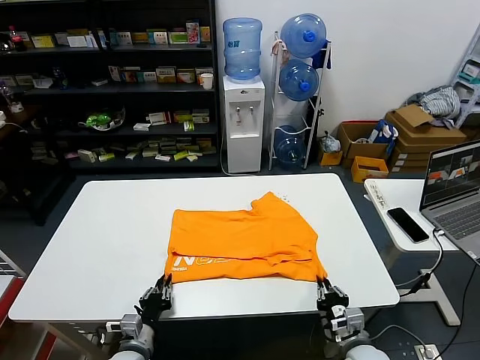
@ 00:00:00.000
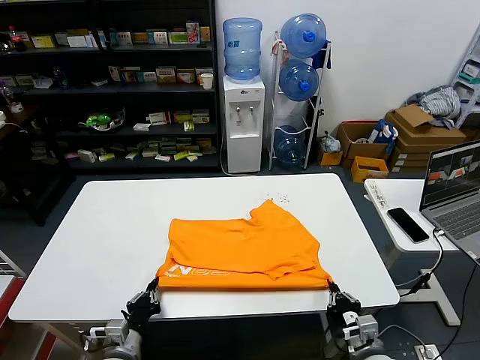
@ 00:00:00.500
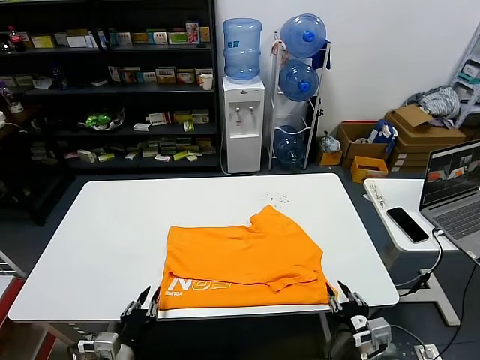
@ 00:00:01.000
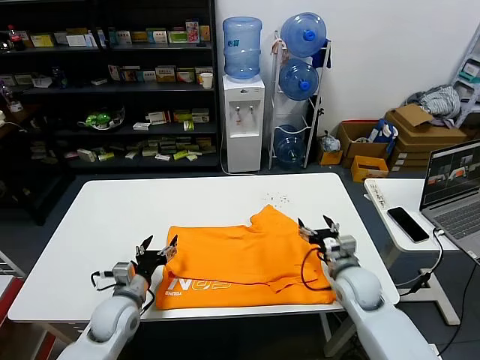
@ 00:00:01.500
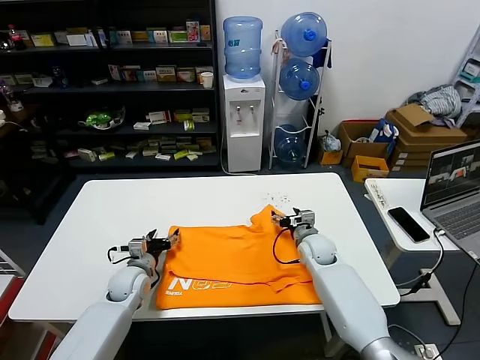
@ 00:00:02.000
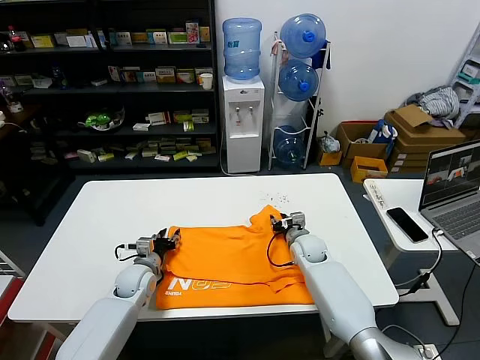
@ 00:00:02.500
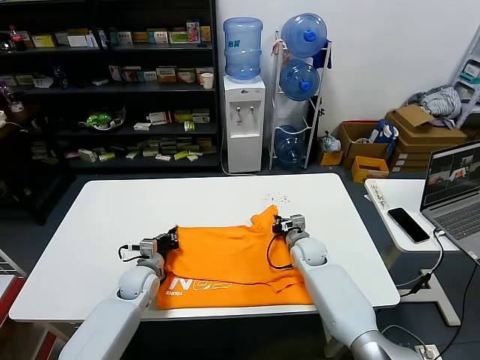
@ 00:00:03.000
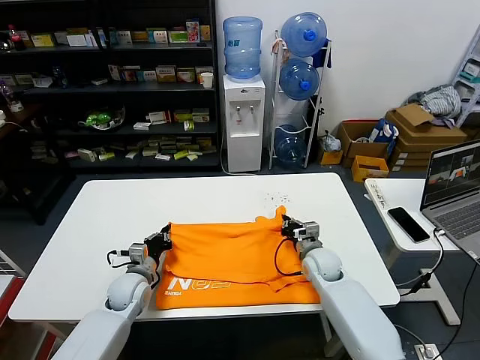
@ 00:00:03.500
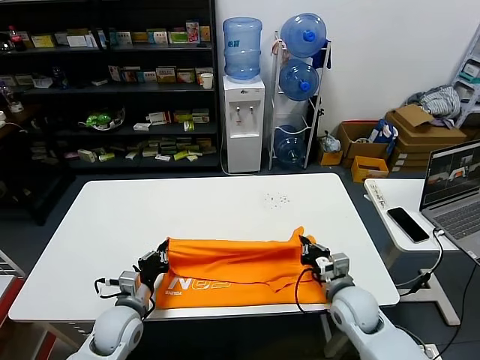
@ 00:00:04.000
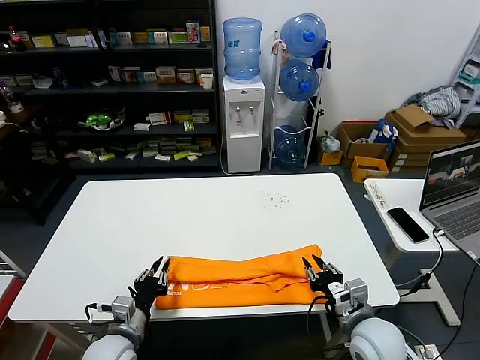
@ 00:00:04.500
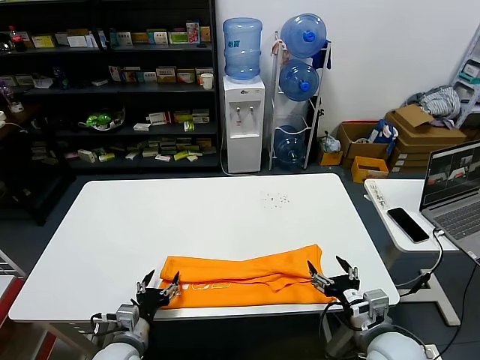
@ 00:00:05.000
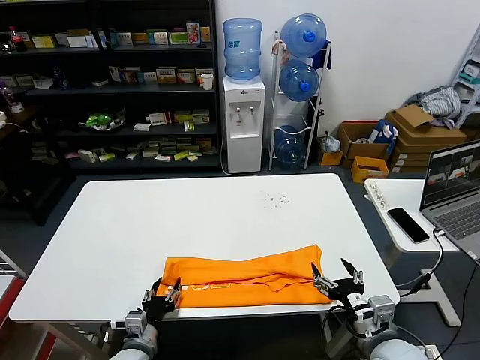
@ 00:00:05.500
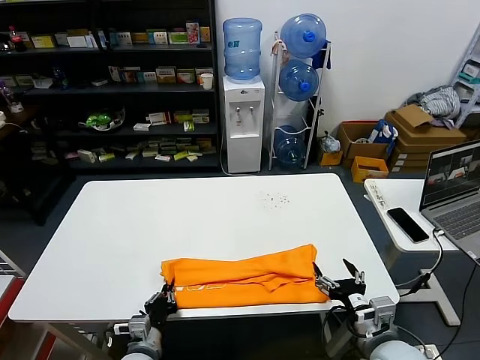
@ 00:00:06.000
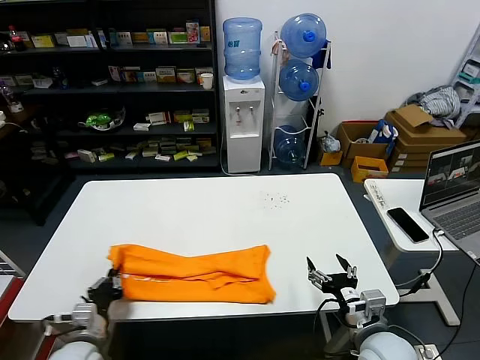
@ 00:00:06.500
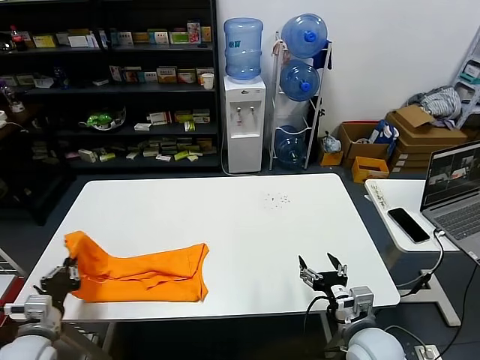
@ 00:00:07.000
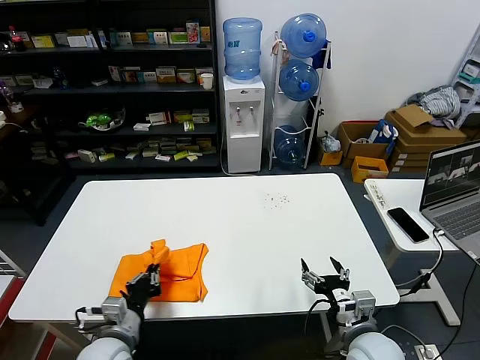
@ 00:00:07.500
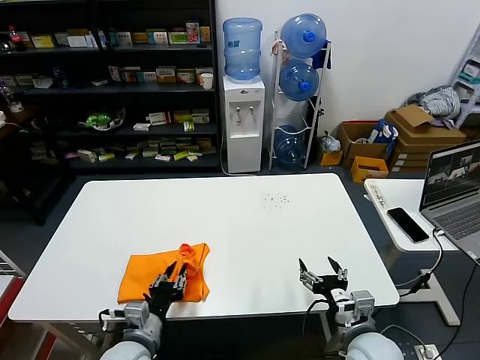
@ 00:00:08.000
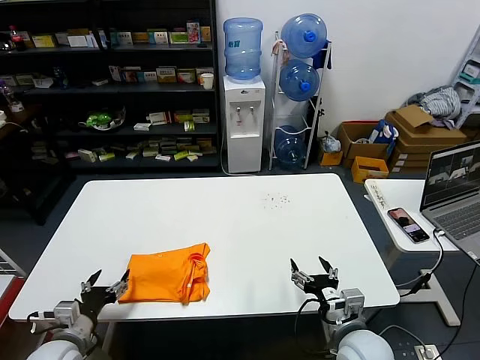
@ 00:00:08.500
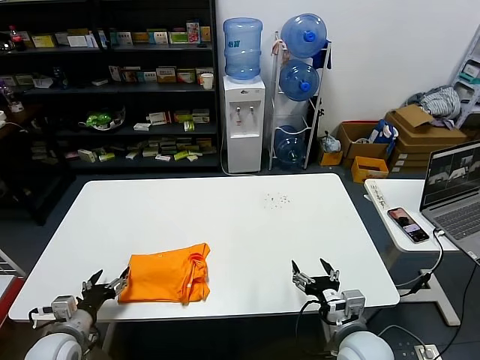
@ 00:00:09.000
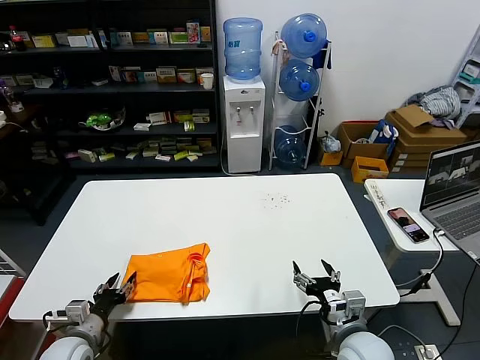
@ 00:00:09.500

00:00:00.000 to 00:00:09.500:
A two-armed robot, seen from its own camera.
Task of the whole recording: fold and organize the clothes.
Step, 00:00:01.000 to 00:00:03.000: use both grippers simultaneously to clamp the upper edge of the clothing fabric.
Step, 00:00:03.500 to 00:00:04.000: use both grippers to drag the upper edge of the fabric backward and fold it over the lower edge.
Step, 00:00:05.000 to 00:00:05.500: use the left gripper to clamp the left edge of the fabric.
Step, 00:00:06.500 to 00:00:08.000: use the left gripper to drag the left edge of the fabric to the left and folds it over the right edge.
00:00:00.000 to 00:00:02.000: Both grippers move forward, about 20 cm. The left gripper opens, while the right gripper opens its fingers.
00:00:02.000 to 00:00:04.000: The right gripper is displaced backward by roughly 15 cm, and closes, while the left gripper heads backward, covering roughly 10 cm, and closes up.
00:00:04.000 to 00:00:05.500: The left gripper goes some 10 cm backward, and opens its fingers. Meanwhile the right gripper is displaced backward and upward by roughly 15 cm, and opens up.
00:00:05.500 to 00:00:07.500: The left gripper travels upward by roughly 10 cm, goes to the left and returns, about 20 cm each way, and closes its fingers.
00:00:07.500 to 00:00:09.500: The left gripper travels to the left and downward by roughly 10 cm, and opens.

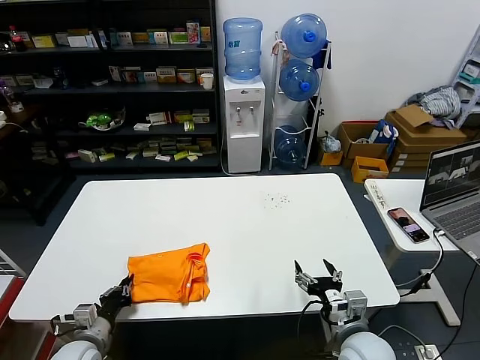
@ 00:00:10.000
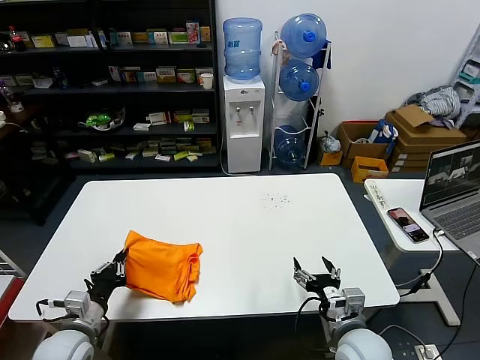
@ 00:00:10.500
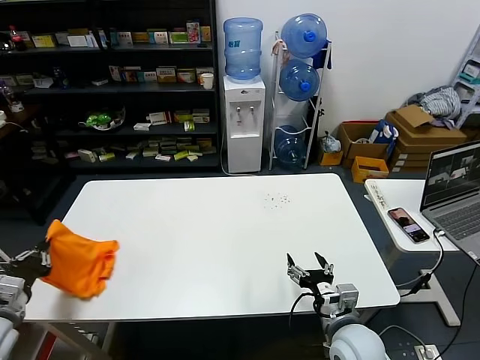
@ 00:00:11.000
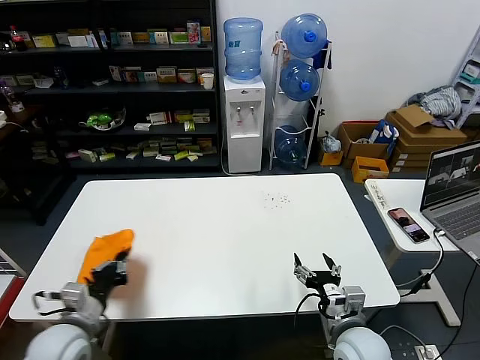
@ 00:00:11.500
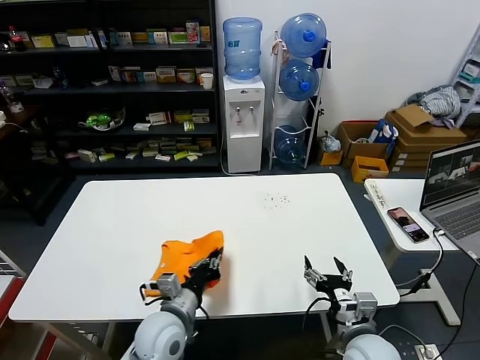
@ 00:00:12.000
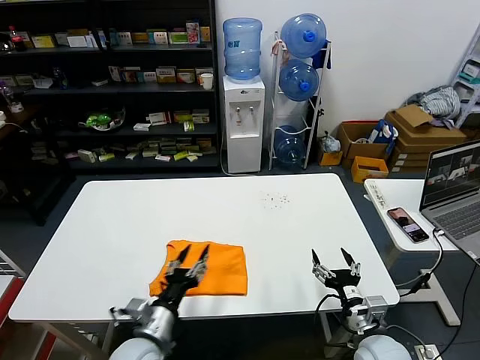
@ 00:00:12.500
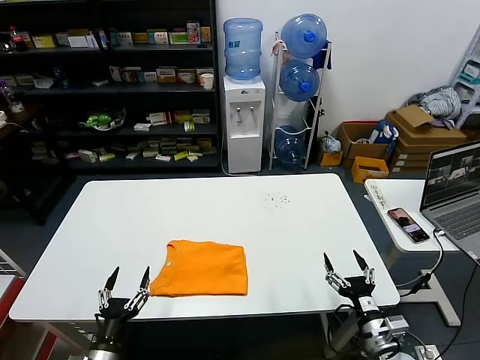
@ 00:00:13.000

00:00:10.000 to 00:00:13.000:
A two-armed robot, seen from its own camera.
Task of the whole recording: fold and organize the clothes.
Step, 00:00:10.000 to 00:00:12.000: Flip the folded clothes over with left gripper.
00:00:10.000 to 00:00:11.500: The left gripper heads upward, covering about 10 cm.
00:00:11.500 to 00:00:13.000: The right gripper goes about 10 cm to the right, while the left gripper shifts about 15 cm downward, to the right and backward, and opens up.

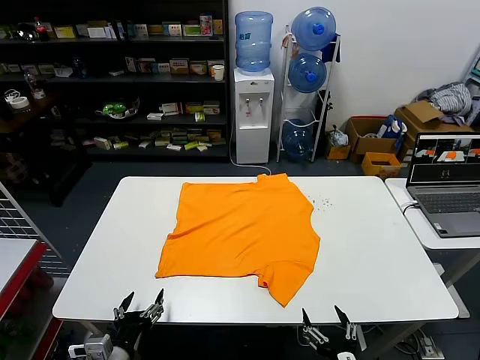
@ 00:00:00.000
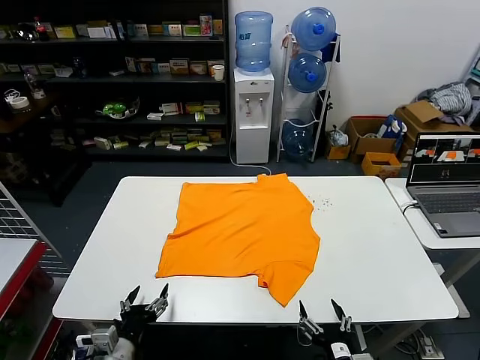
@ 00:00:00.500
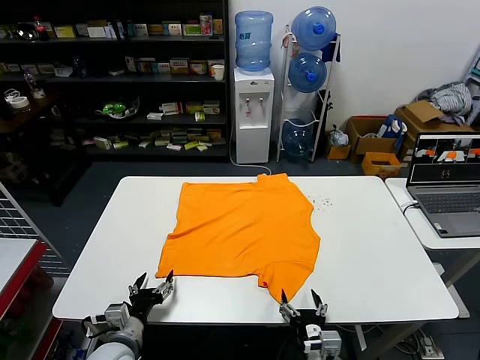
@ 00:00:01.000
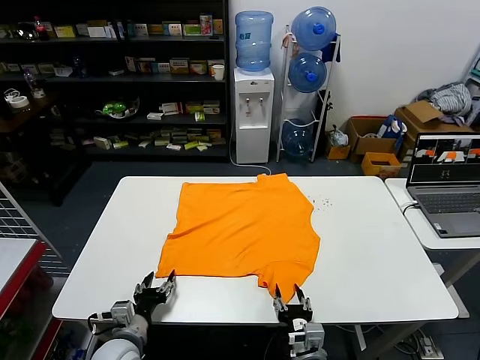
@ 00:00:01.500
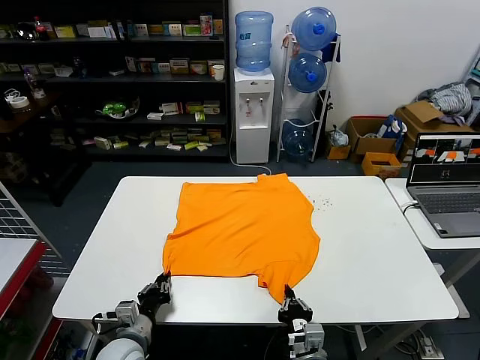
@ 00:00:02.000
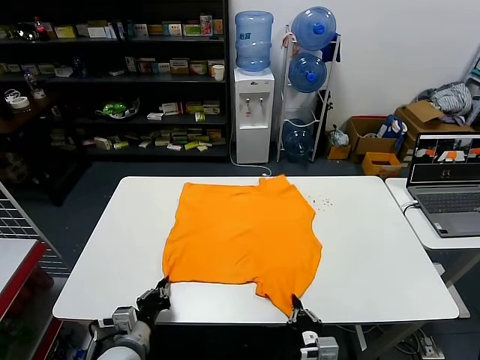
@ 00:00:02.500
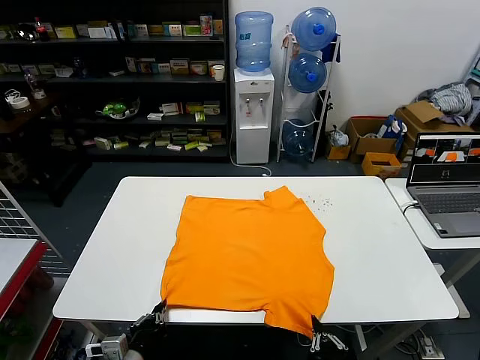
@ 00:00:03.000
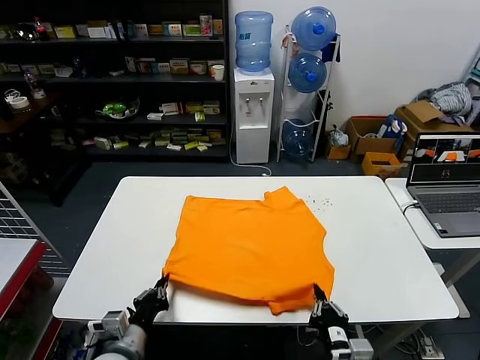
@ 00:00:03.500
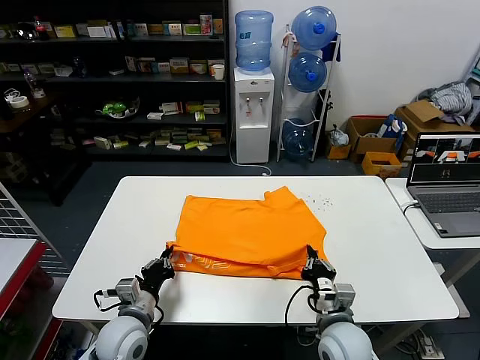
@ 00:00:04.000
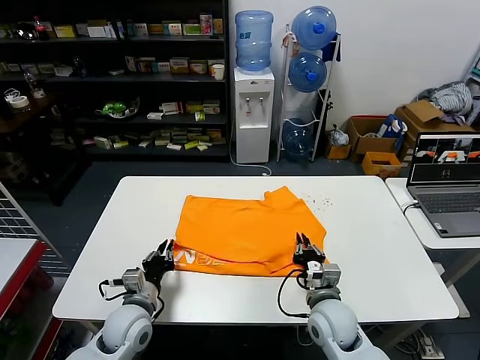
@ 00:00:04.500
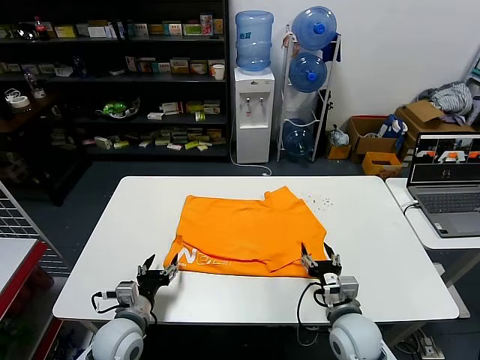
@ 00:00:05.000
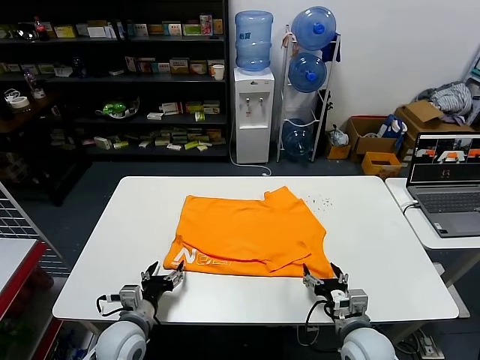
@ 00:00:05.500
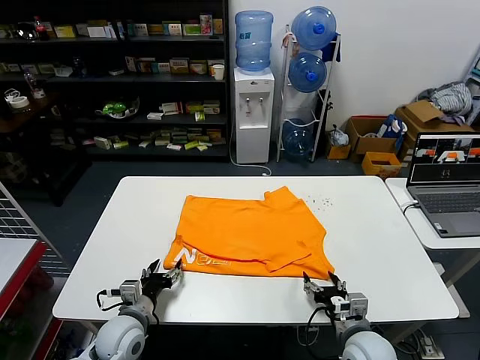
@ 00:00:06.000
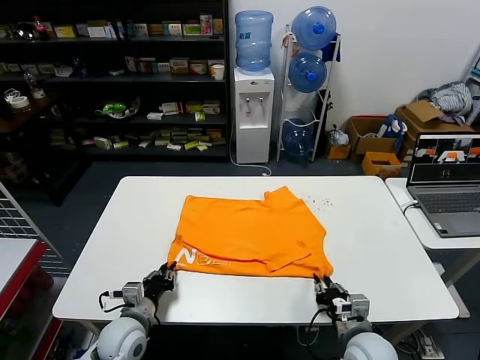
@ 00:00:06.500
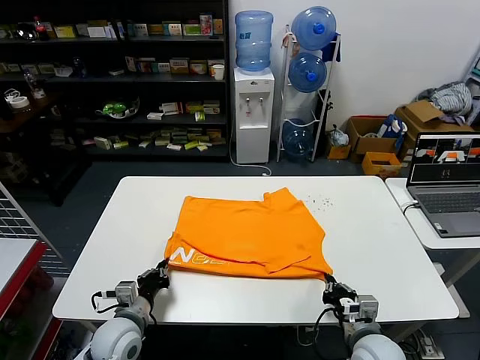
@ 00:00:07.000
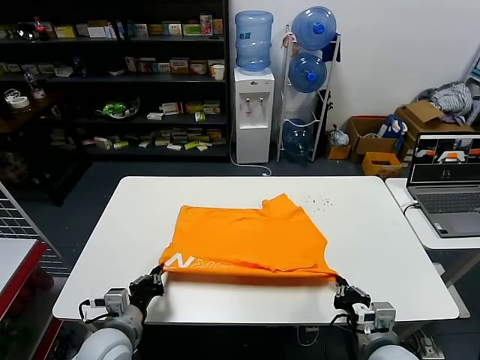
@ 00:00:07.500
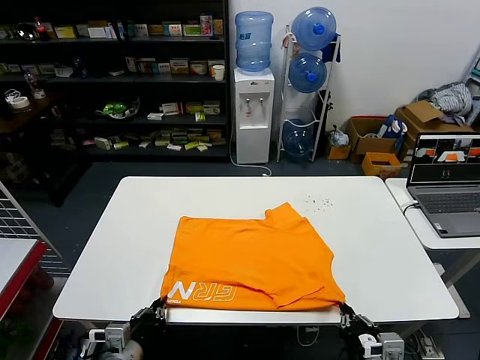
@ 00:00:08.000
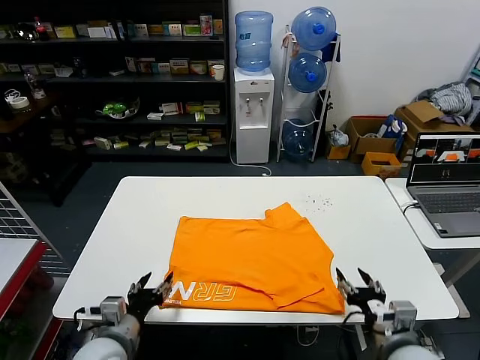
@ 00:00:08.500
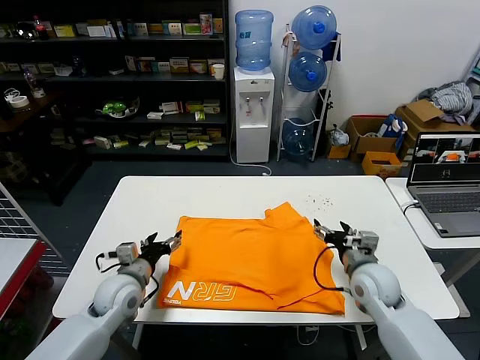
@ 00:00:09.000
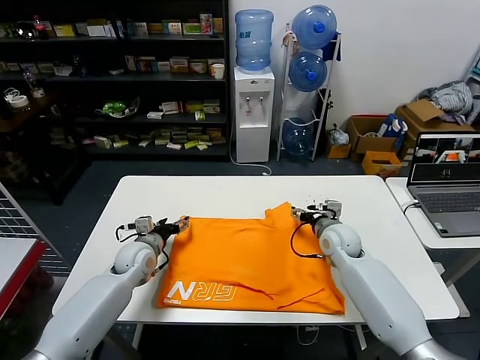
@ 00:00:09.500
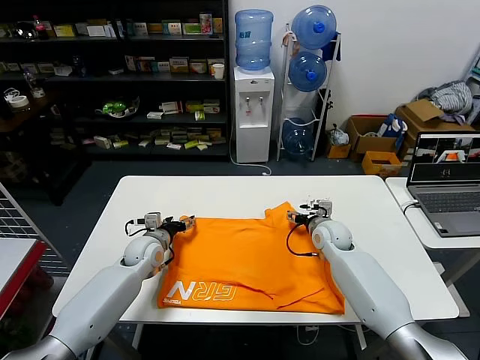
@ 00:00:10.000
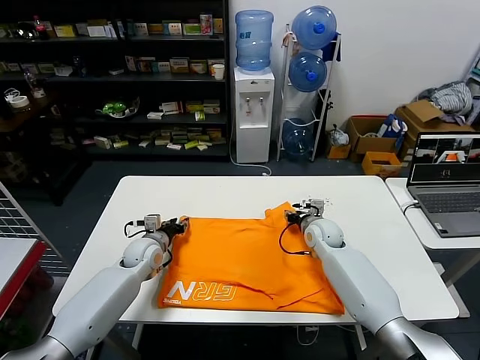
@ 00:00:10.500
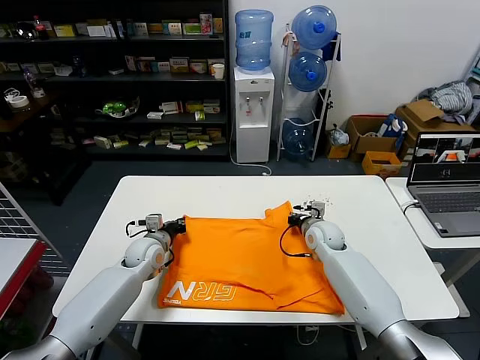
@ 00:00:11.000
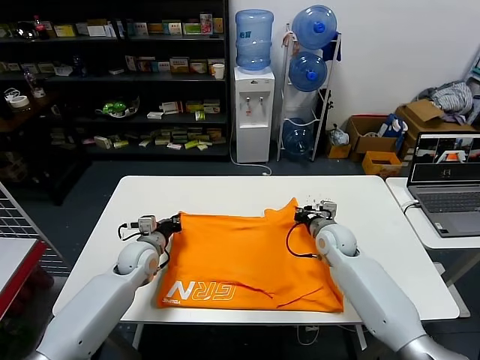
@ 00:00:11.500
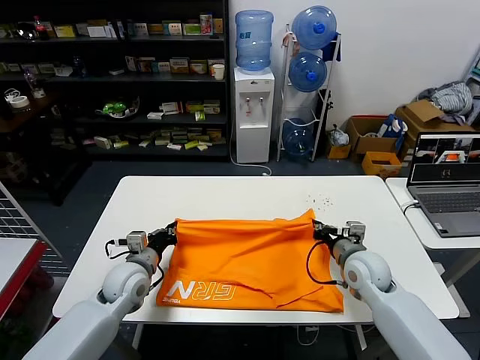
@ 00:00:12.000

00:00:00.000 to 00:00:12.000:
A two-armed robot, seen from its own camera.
Task of the whole recording: fold and organize the clothes.
Step, 00:00:00.000 to 00:00:02.000: use both grippers simultaneously to clamp the lower edge of the clothing fabric.
Step, 00:00:02.500 to 00:00:04.500: use both grippers to drag the lower edge of the fabric forward and fold it over the upper edge.
Step, 00:00:05.000 to 00:00:08.000: Drag the clothes downward with both gripper.
Step, 00:00:08.500 to 00:00:10.500: use both grippers simultaneously to clamp the upper edge of the clothing fabric.
00:00:02.000 to 00:00:04.000: The left gripper travels backward and back again, roughly 10 cm each way, while the right gripper shifts roughly 10 cm forward, to the right and upward.
00:00:04.000 to 00:00:06.000: The right gripper heads to the right, covering about 5 cm, and opens. Meanwhile the left gripper opens its fingers.
00:00:06.000 to 00:00:08.000: Both grippers travel together backward, about 10 cm. The left gripper closes up. Meanwhile the right gripper closes up.
00:00:08.000 to 00:00:10.000: Both grippers move forward, some 35 cm. The right gripper opens up. Meanwhile the left gripper opens up.
00:00:10.000 to 00:00:12.000: The two grippers go about 10 cm backward. The left gripper closes its fingers. The right gripper closes its fingers.
